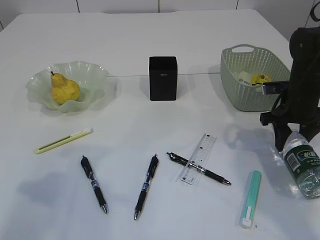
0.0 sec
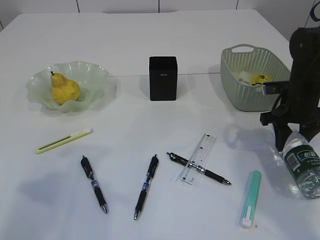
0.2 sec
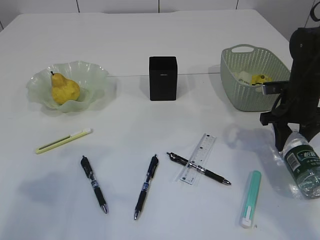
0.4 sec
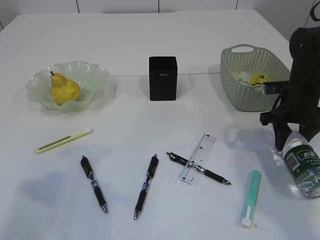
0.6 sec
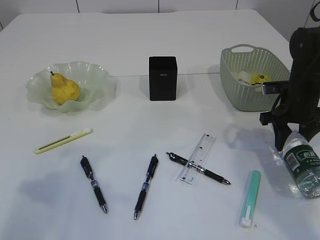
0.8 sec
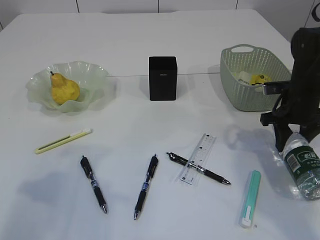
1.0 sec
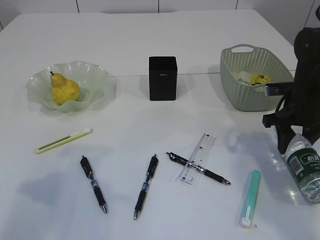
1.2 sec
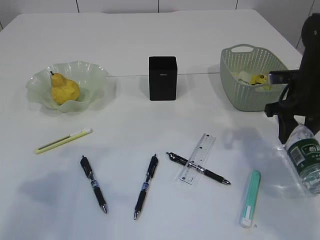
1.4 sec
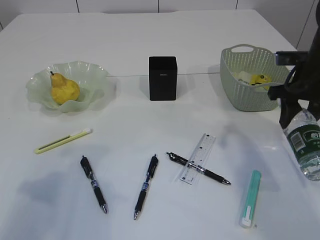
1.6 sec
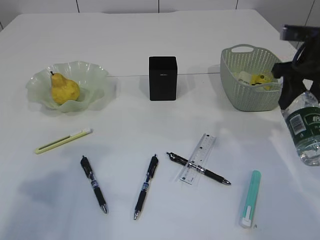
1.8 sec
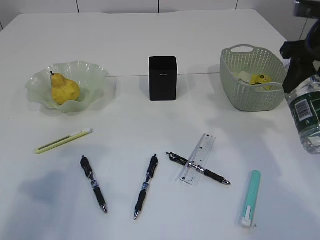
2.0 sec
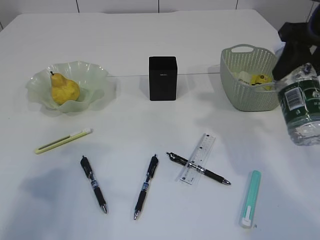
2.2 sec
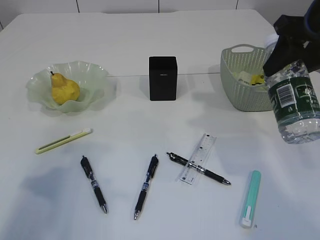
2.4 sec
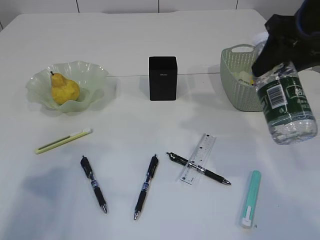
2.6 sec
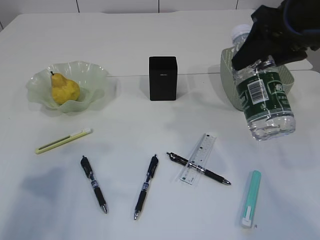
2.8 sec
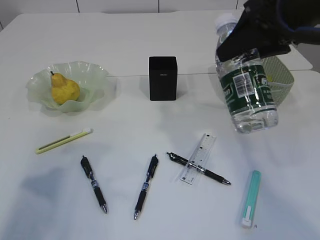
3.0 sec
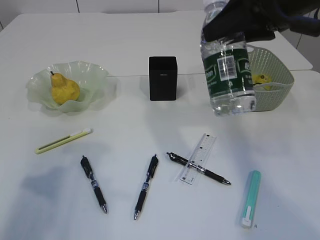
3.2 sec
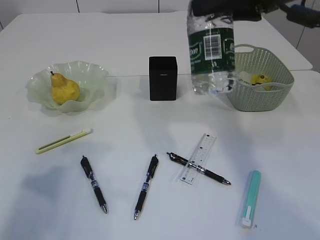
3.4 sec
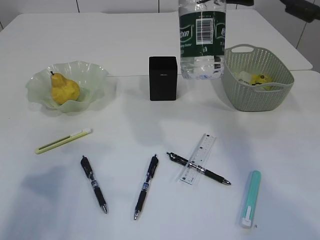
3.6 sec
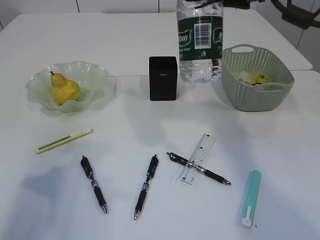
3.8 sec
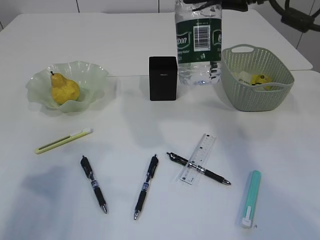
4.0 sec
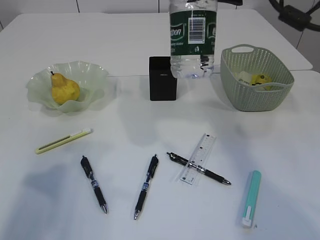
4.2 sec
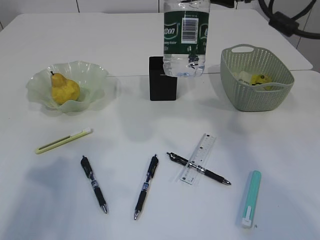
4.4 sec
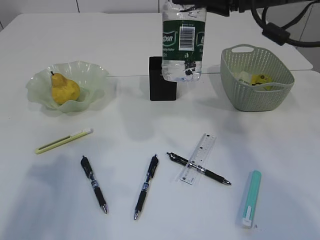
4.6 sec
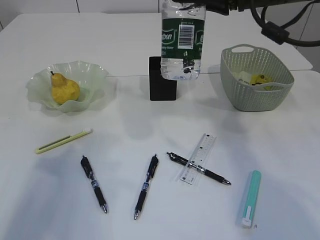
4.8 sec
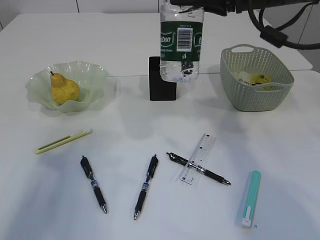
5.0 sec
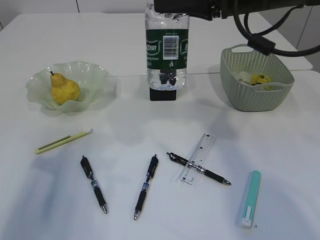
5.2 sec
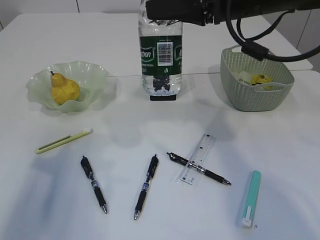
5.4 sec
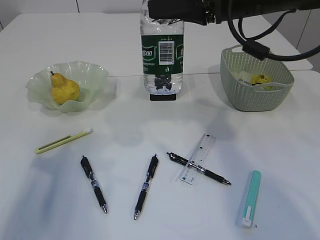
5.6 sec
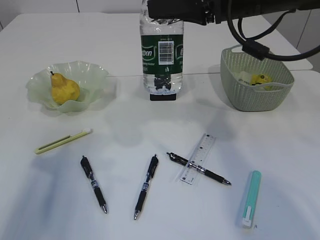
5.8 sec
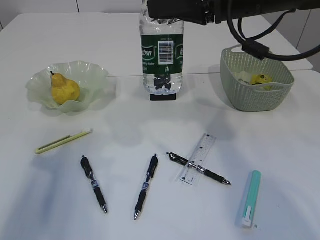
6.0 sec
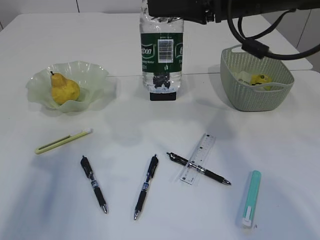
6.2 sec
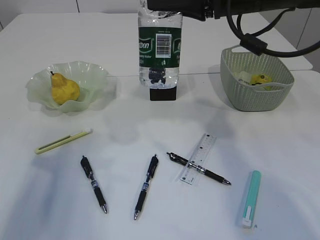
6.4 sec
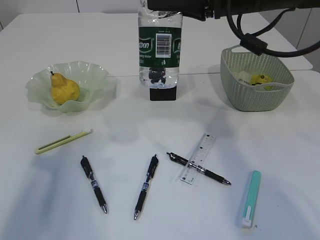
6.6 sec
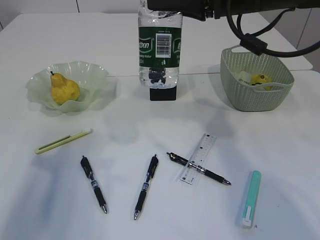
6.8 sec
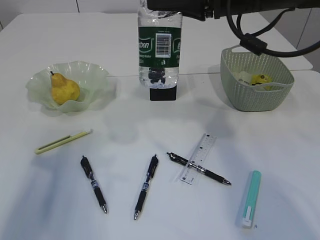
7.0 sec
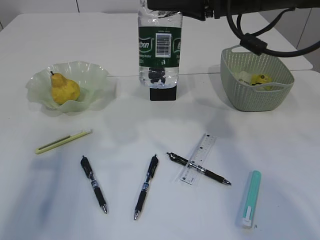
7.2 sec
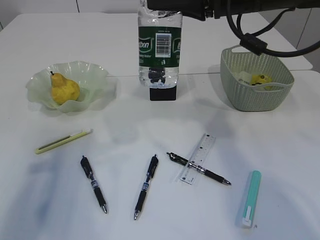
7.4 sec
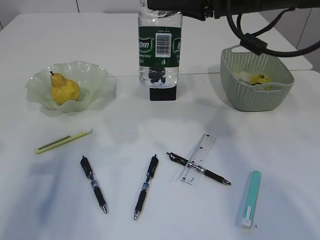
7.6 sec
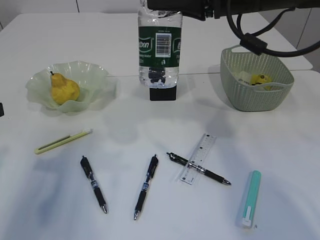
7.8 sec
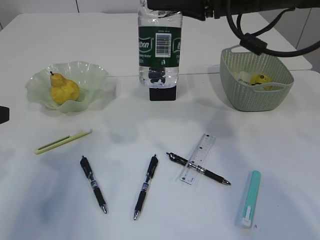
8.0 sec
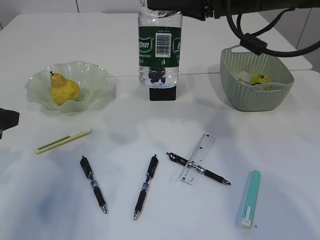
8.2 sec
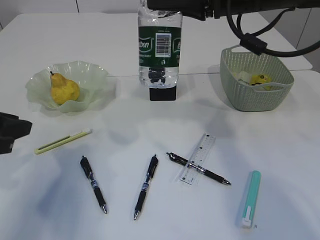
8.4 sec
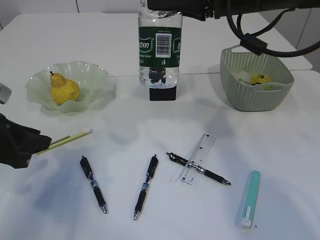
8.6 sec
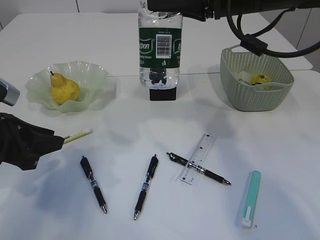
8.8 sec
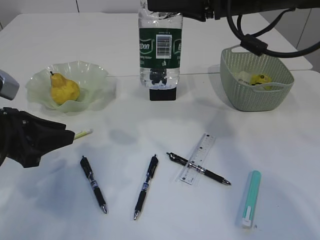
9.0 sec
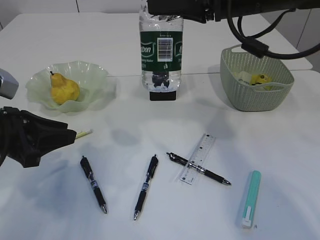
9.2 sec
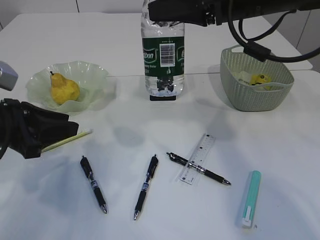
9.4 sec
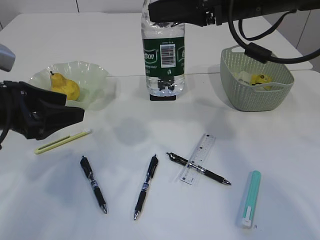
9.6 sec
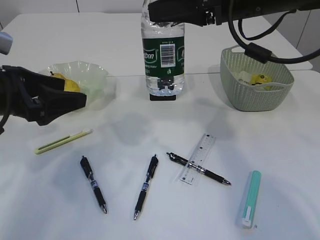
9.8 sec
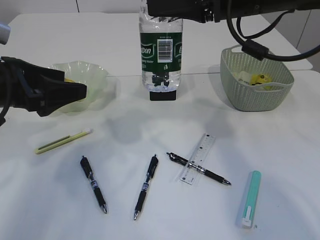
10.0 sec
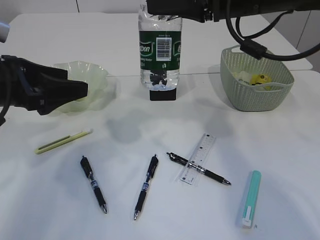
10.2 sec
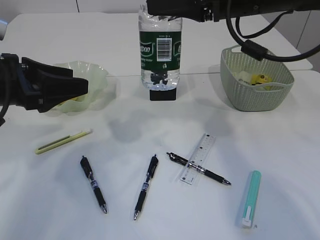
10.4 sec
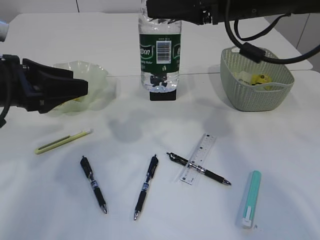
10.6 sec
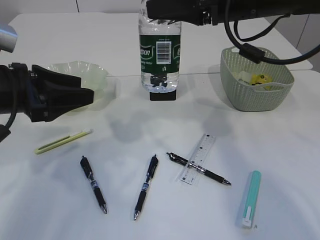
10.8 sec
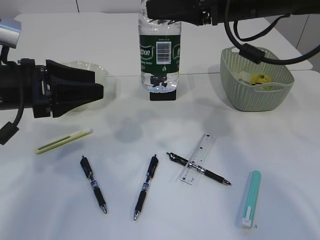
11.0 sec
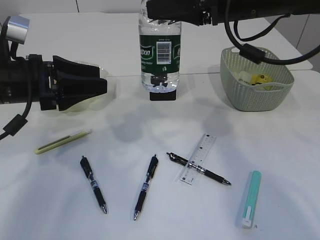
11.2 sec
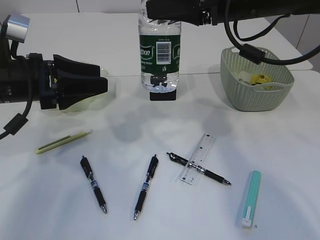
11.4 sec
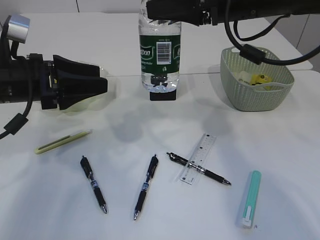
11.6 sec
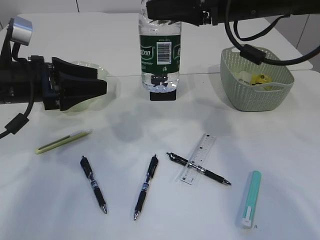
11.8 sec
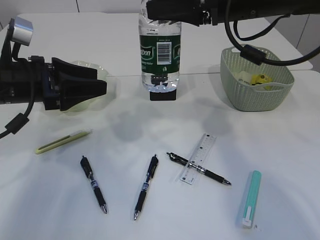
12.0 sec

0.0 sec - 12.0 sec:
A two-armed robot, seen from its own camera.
0.0 sec - 1.6 sec: The right gripper is displaced upward by some 5 cm.
1.6 sec - 3.0 sec: The right gripper is displaced upward and to the left by approximately 15 cm.
4.4 sec - 6.0 sec: The grippers make only small movements.
7.6 sec - 9.0 sec: The left gripper heads downward and to the right, covering some 10 cm.
9.0 sec - 10.4 sec: The left gripper travels upward by approximately 5 cm, and opens its fingers.
10.4 sec - 12.0 sec: The grippers stay close to where they were, moving slightly.

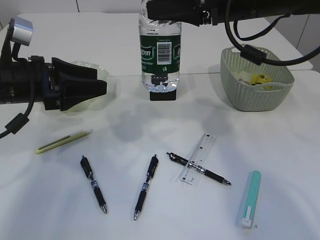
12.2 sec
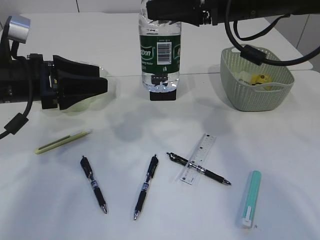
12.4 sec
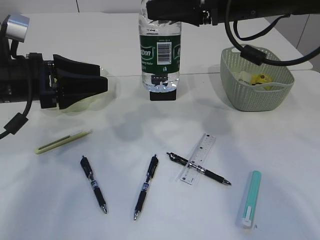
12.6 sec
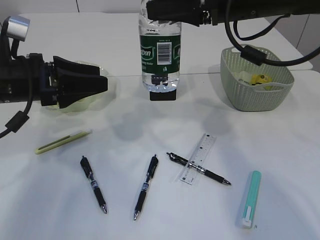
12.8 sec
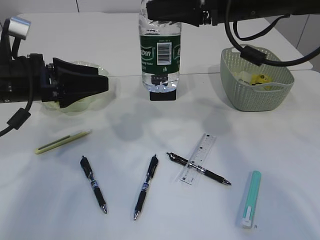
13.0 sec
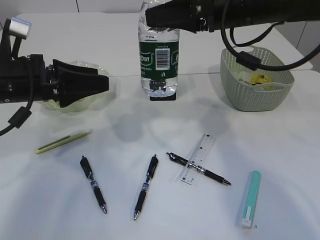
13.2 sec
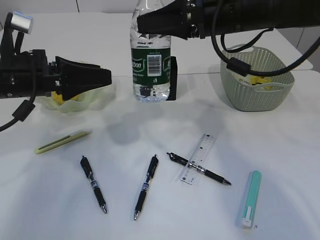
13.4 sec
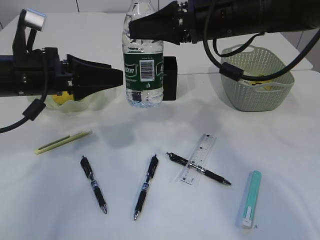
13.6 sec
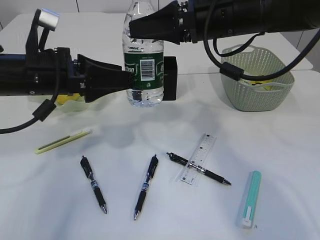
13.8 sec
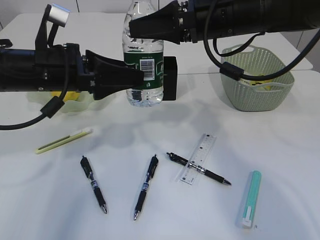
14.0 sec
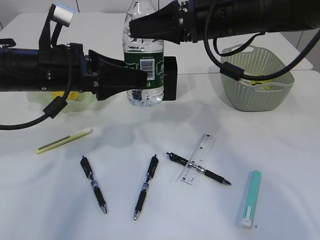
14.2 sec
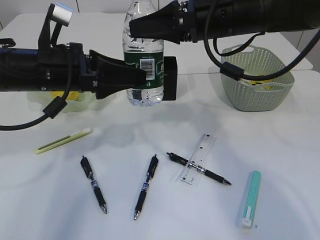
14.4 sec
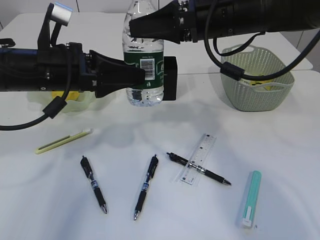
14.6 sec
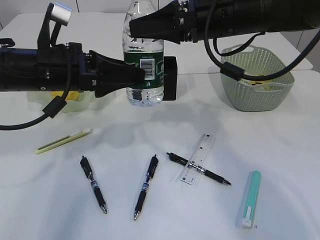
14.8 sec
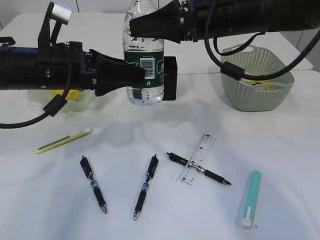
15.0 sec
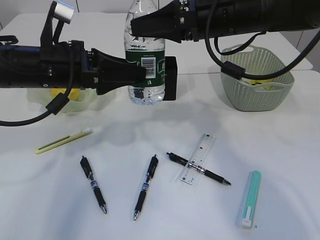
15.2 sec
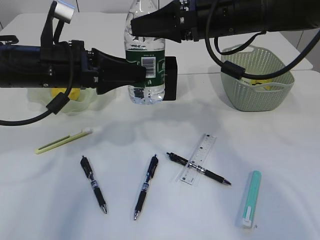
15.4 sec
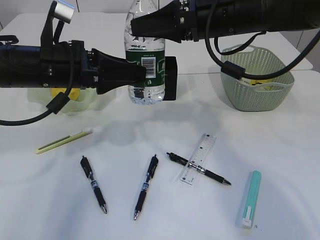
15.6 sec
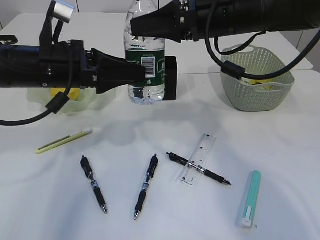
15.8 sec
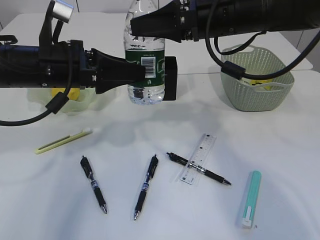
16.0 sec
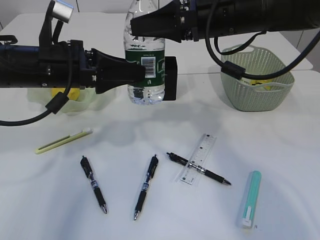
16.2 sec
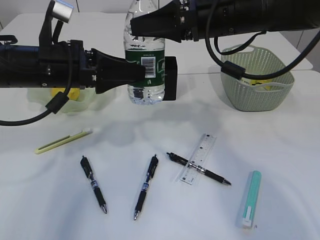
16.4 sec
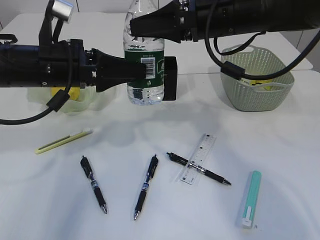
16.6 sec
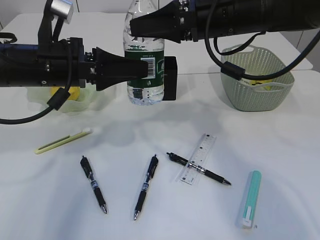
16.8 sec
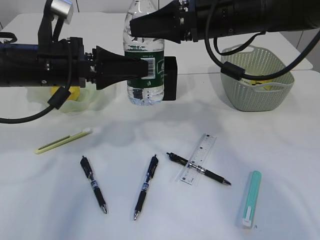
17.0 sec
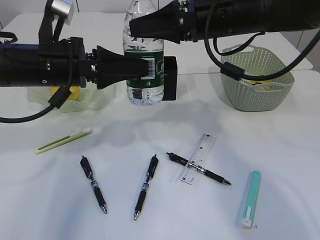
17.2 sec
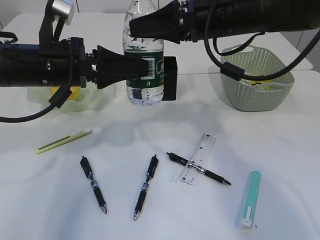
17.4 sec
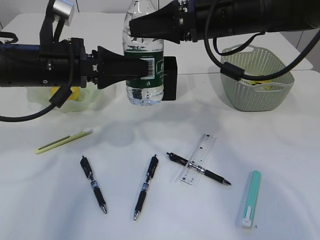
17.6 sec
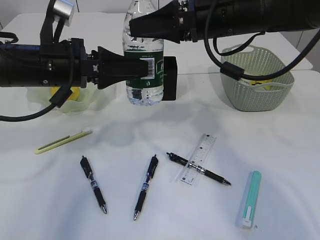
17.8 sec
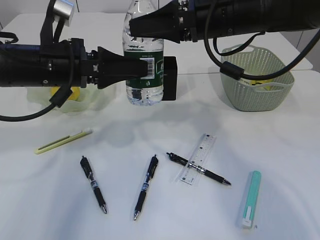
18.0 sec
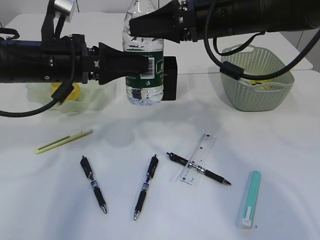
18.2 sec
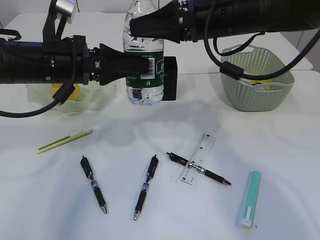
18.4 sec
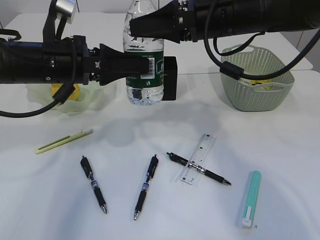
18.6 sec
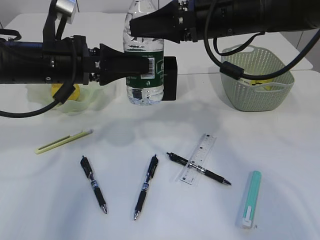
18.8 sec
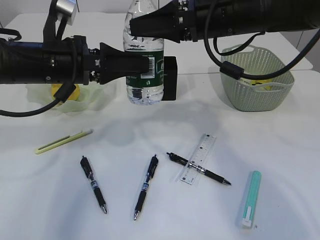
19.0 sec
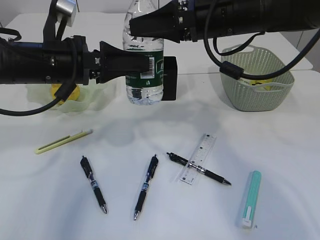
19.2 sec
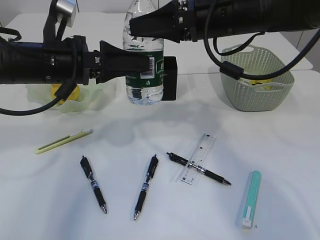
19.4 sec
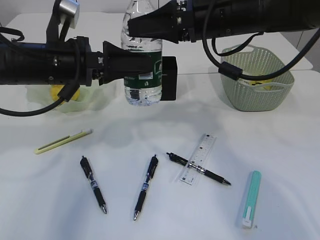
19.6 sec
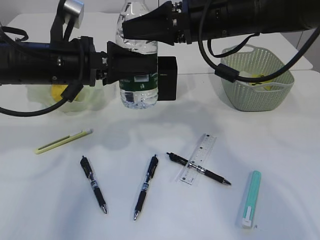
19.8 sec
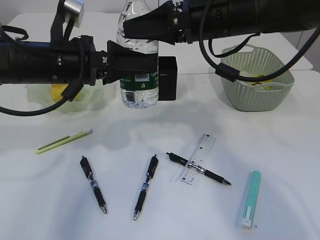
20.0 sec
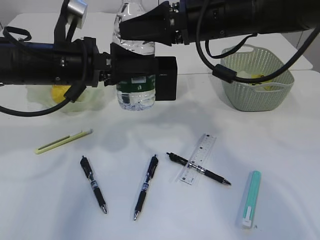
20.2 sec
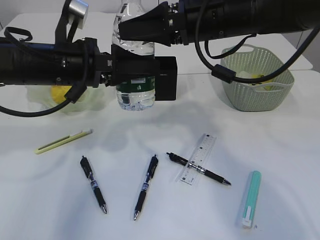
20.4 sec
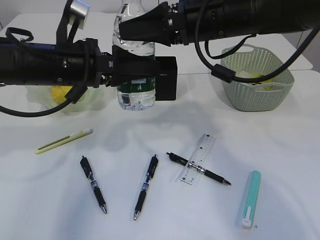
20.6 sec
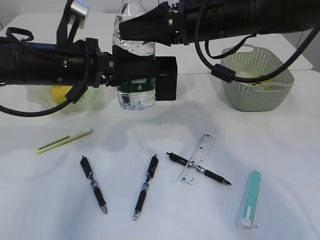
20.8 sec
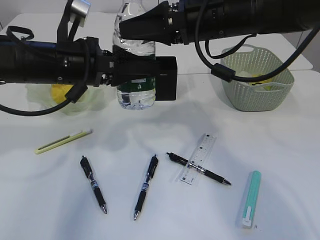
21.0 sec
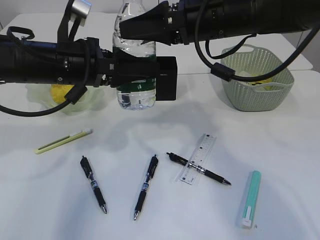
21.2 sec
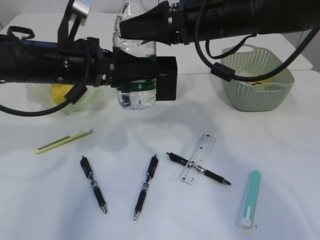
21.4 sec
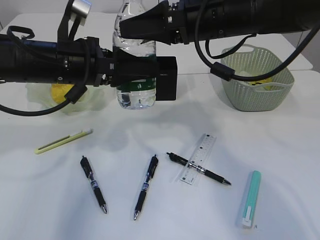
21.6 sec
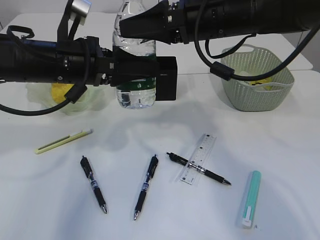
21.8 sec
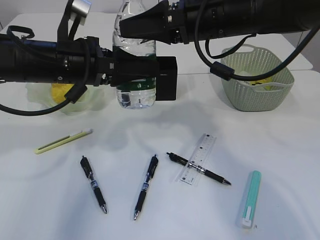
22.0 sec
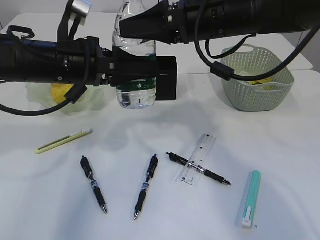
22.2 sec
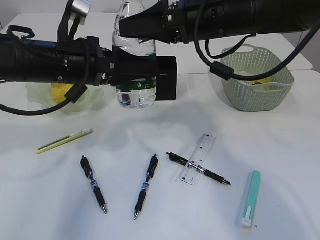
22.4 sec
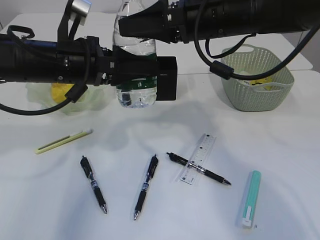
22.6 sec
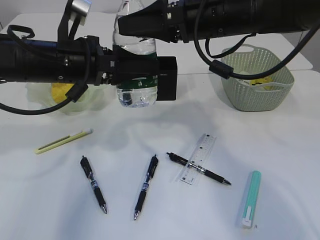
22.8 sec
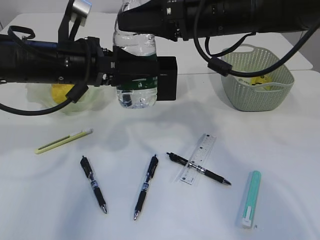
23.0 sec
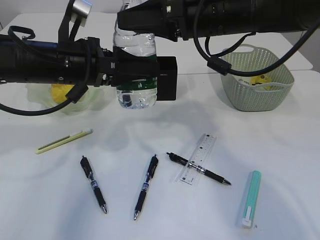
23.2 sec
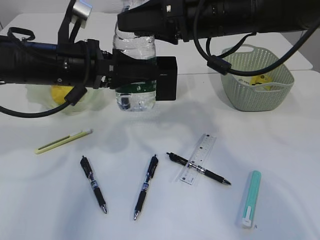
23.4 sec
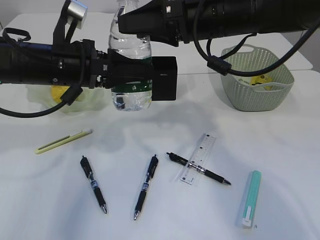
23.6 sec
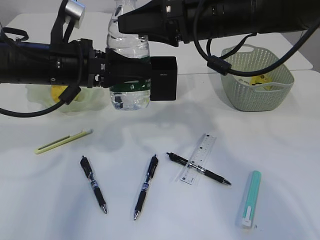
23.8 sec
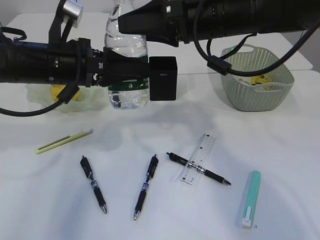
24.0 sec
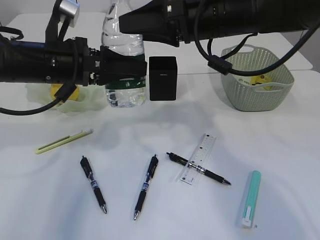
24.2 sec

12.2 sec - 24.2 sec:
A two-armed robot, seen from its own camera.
13.8 sec - 15.2 sec: There are only small adjustments of the grippers.
15.2 sec - 16.6 sec: Both grippers stay about where they are.
16.6 sec - 19.8 sec: The grippers move only a little.
19.8 sec - 21.2 sec: The left gripper closes up.
21.2 sec - 22.6 sec: Both grippers stay put.
22.6 sec - 24.2 sec: The grippers make only small movements.
